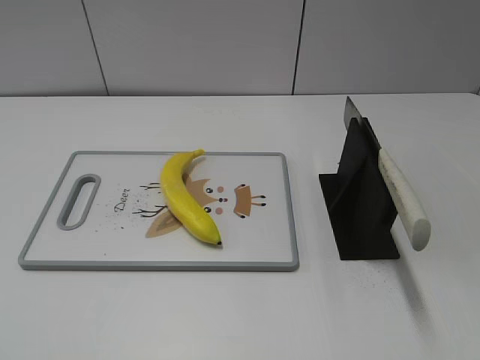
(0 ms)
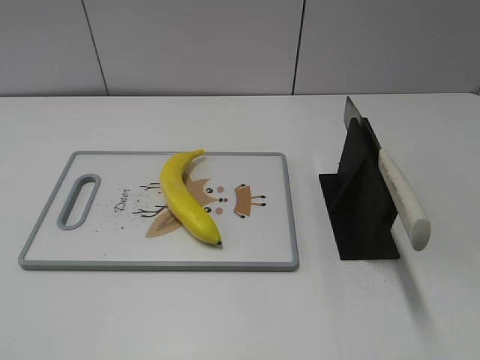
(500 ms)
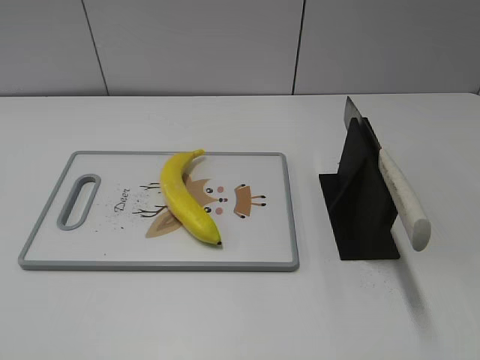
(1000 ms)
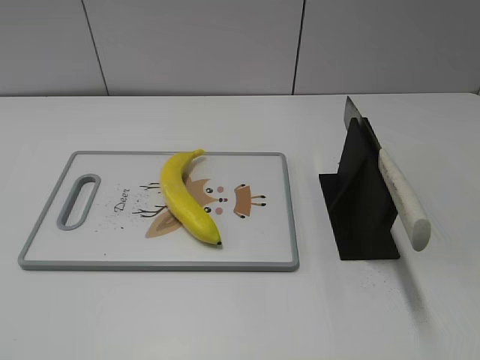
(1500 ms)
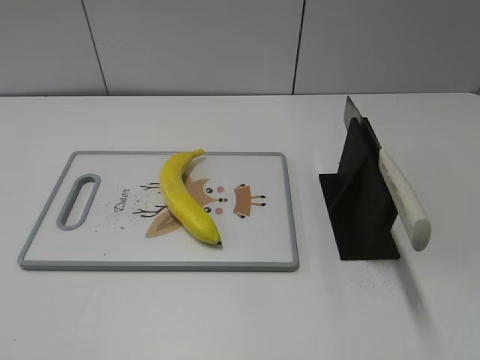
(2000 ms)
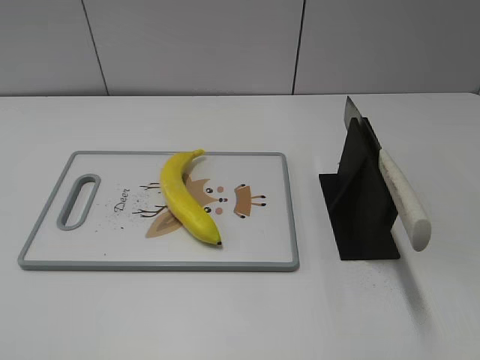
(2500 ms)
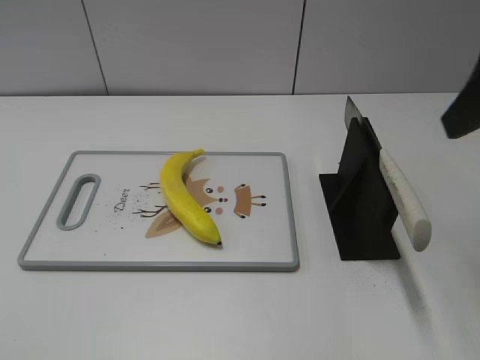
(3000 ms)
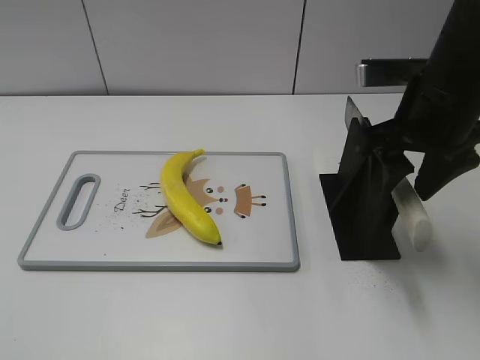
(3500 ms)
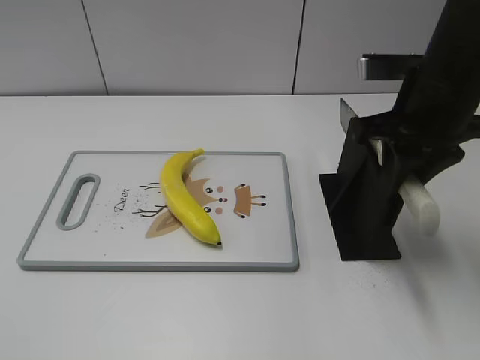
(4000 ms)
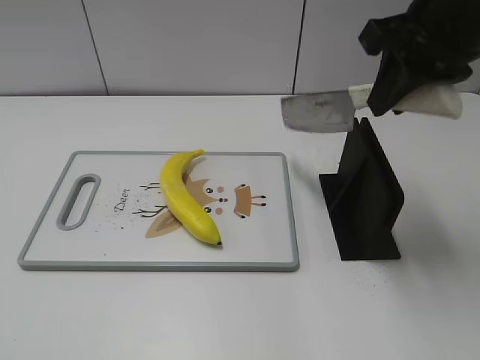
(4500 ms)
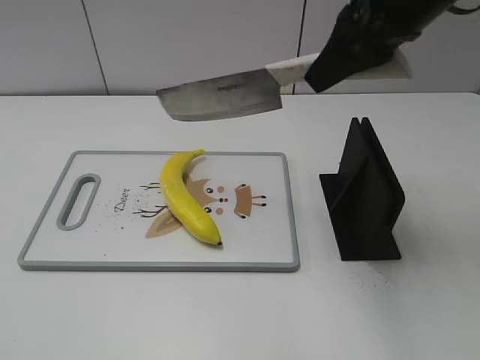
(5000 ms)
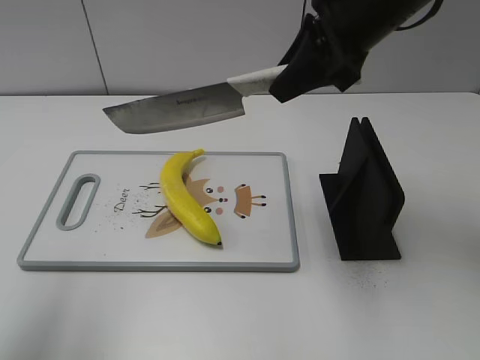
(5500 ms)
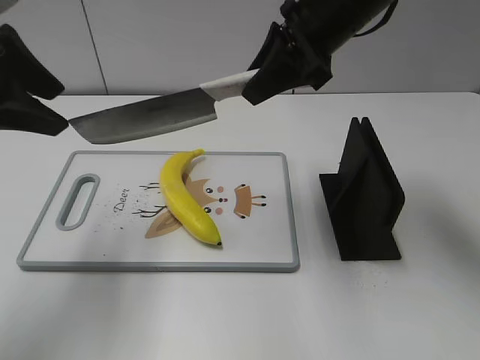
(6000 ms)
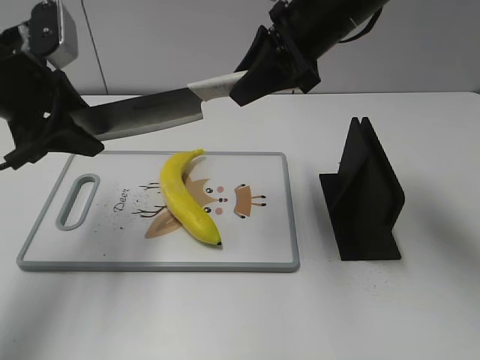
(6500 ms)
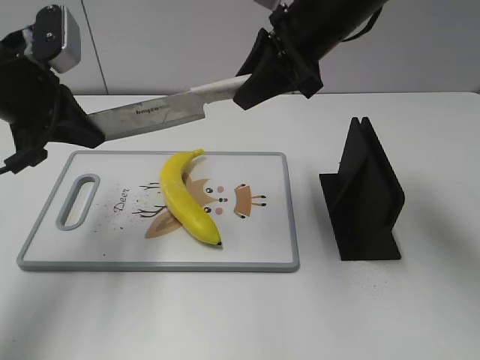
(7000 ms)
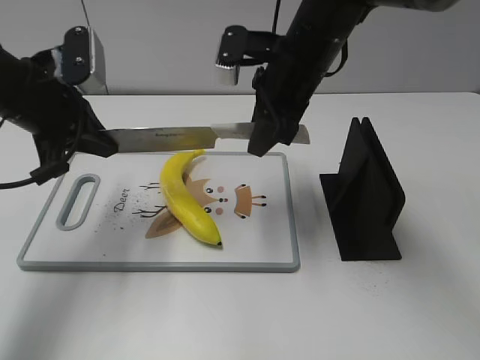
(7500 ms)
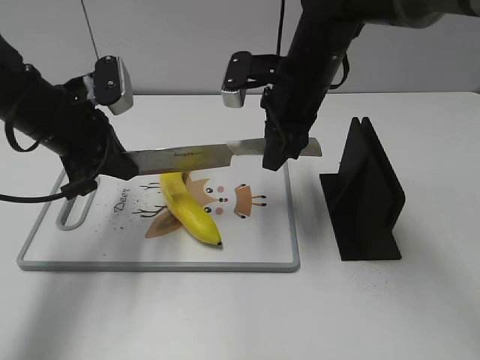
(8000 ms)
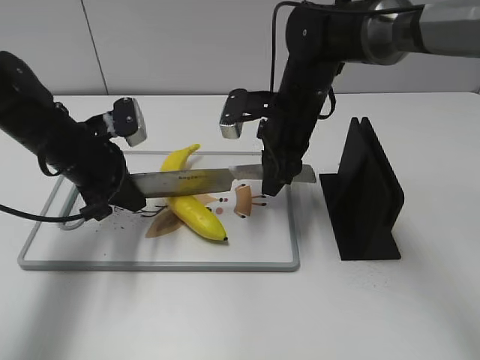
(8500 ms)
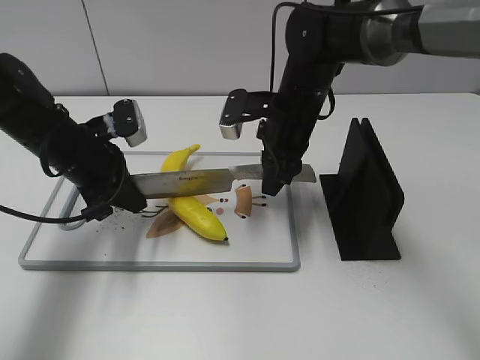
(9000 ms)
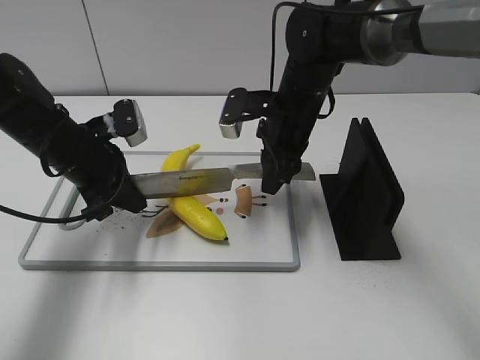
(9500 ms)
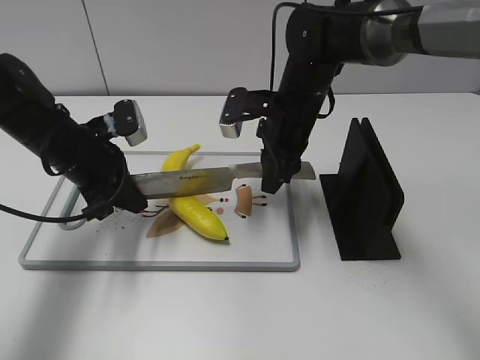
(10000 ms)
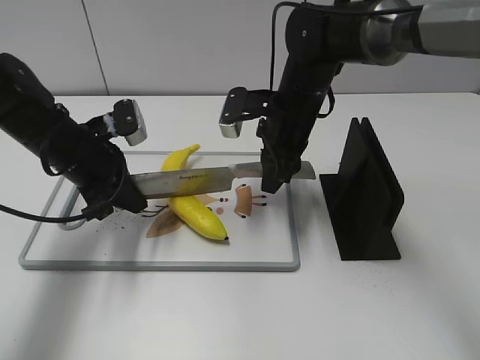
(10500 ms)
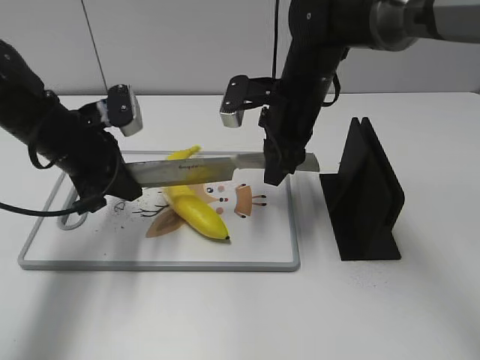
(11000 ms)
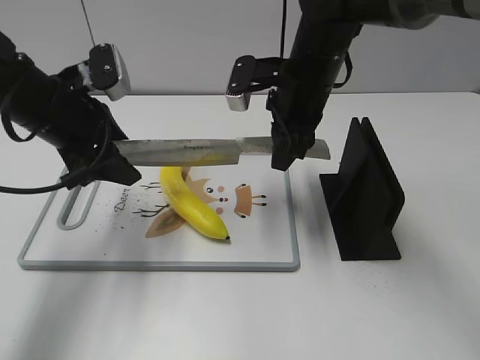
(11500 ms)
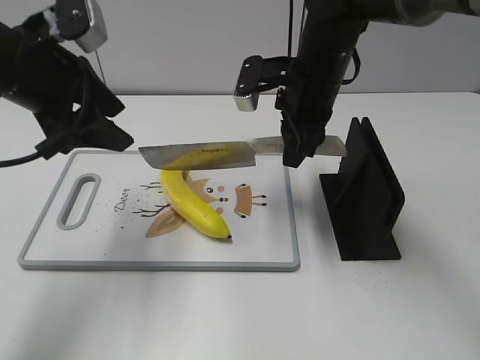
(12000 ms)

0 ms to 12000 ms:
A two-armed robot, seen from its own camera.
Task of the whole recording: cut plastic banana.
Step, 0 ms to 4500 ms: Grab the knife handle with your right hand.
Step, 5000 ms to 8000 ms: Lift the knife with your right hand.
Step, 8500 ms to 10500 ms: Cut the banana with your right hand.
2000 ms to 4000 ms: The right gripper moves forward, about 30 cm, and closes its fingers.
4000 ms to 6000 ms: The left gripper travels forward by about 30 cm. Meanwhile the right gripper is displaced to the left and forward by some 10 cm.
6000 ms to 8000 ms: The right gripper moves downward, roughly 10 cm. The left gripper travels downward and forward by roughly 15 cm, and closes up.
8000 ms to 10000 ms: The grippers both shift downward by some 5 cm.
10000 ms to 12000 ms: The right gripper shifts some 5 cm upward. Meanwhile the left gripper shifts some 15 cm upward, and opens up.

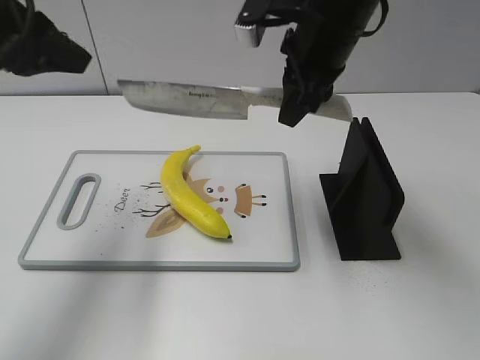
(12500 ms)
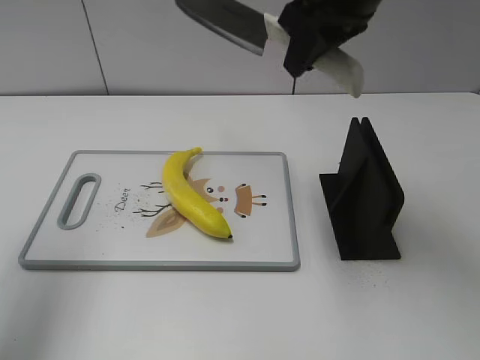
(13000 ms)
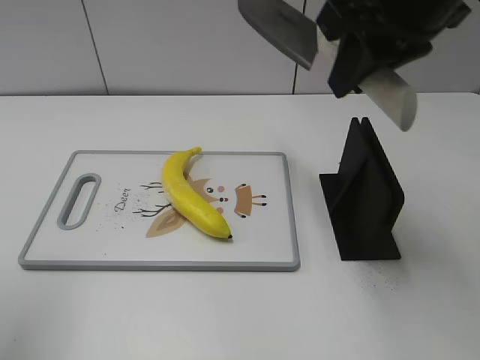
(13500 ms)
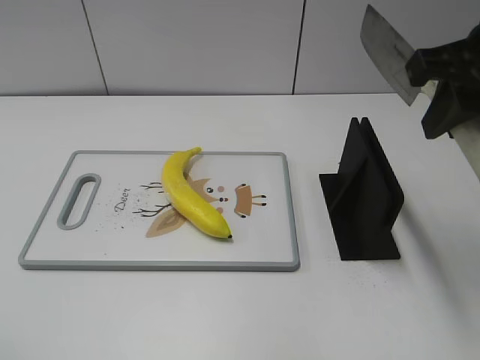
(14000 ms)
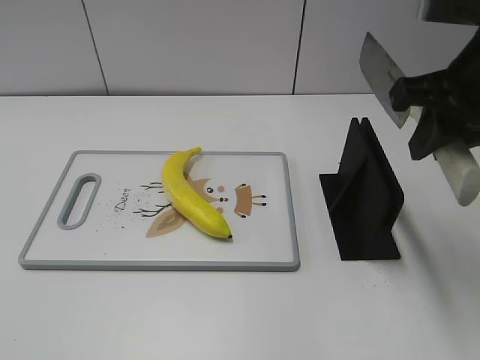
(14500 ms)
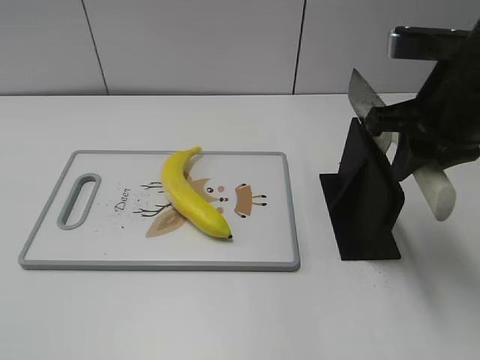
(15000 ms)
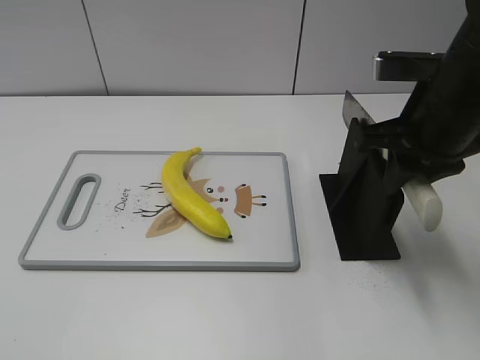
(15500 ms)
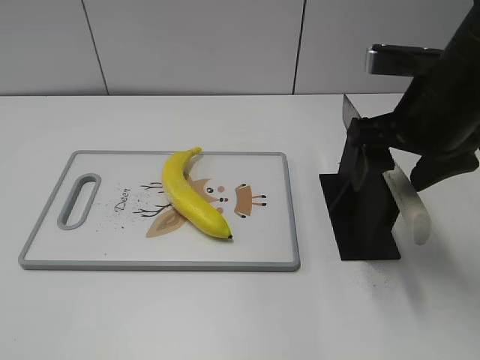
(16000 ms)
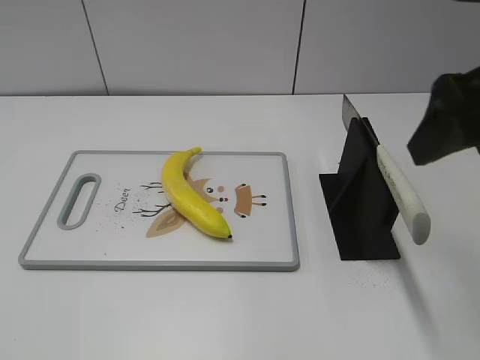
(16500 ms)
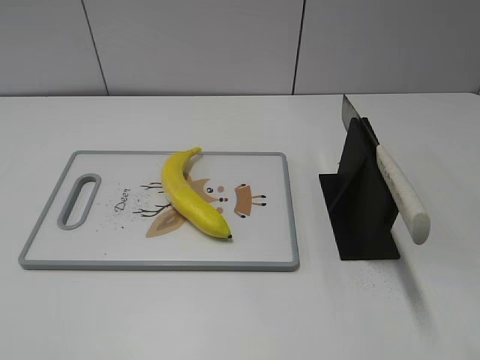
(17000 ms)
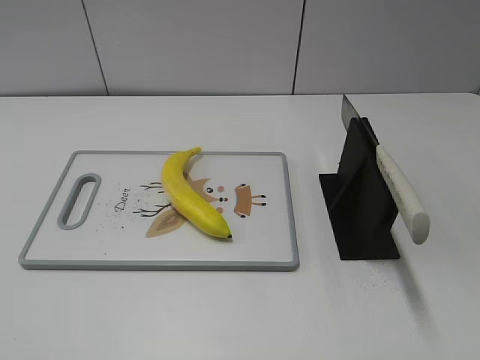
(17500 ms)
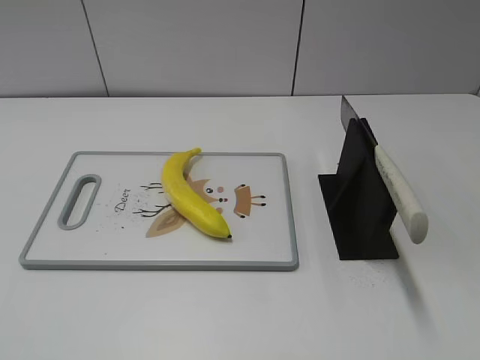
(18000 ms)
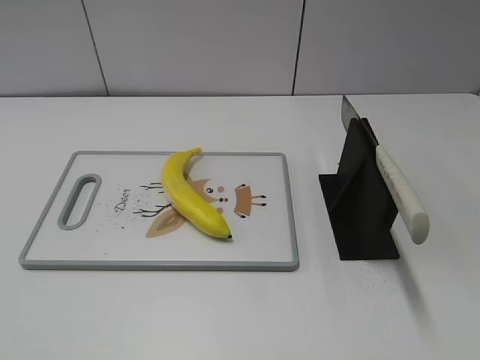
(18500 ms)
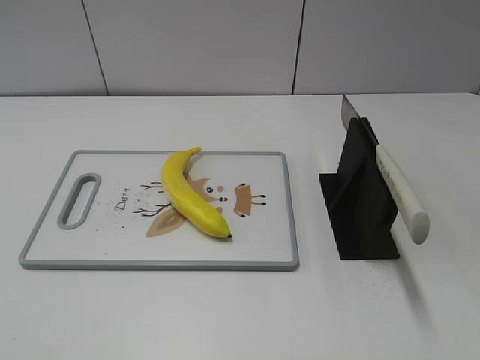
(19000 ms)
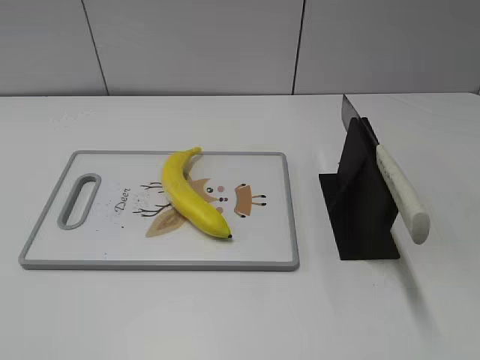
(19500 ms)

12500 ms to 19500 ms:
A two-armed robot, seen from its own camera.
Task of the whole recording: cut plastic banana.
Step, 12500 ms to 14500 ms: Lift the knife with your right hand.
Step, 15000 ms to 19500 ms: Place the knife on the storage rack with your right hand.
12500 ms to 14500 ms: The left gripper is displaced backward by roughly 30 cm, while the right gripper shifts roughly 15 cm backward and to the right.
14500 ms to 16000 ms: The right gripper goes some 5 cm downward, and opens.
16000 ms to 17500 ms: The right gripper moves backward and to the right, about 25 cm.

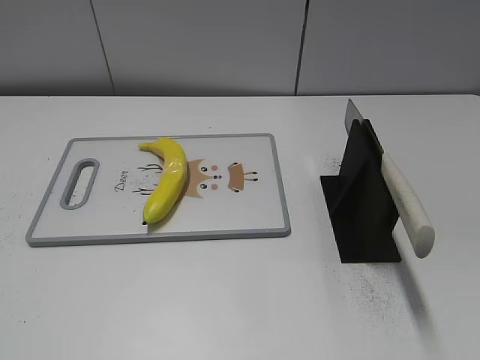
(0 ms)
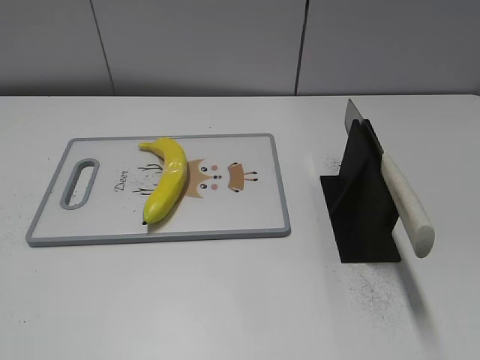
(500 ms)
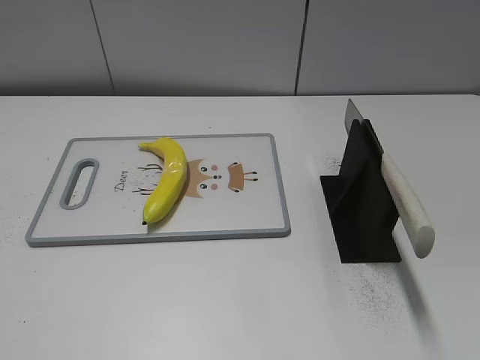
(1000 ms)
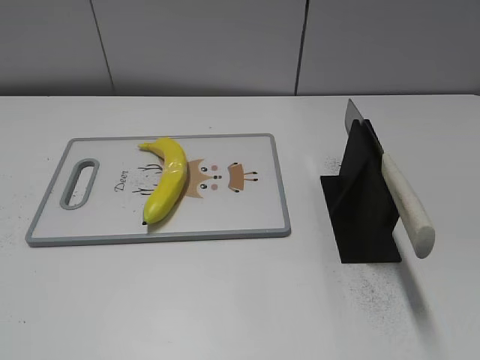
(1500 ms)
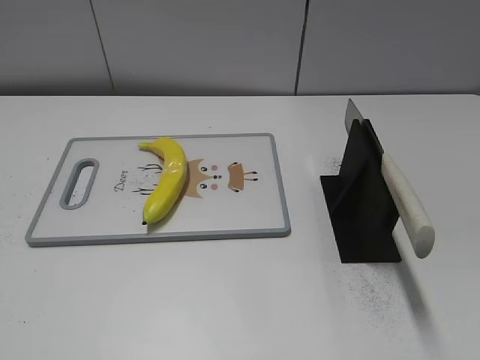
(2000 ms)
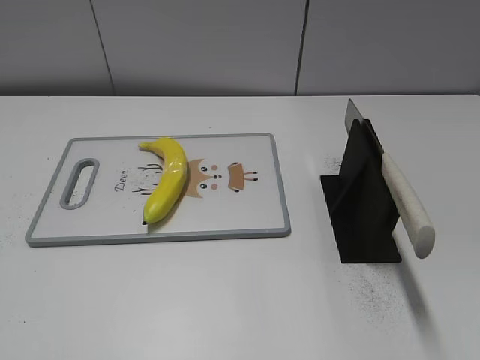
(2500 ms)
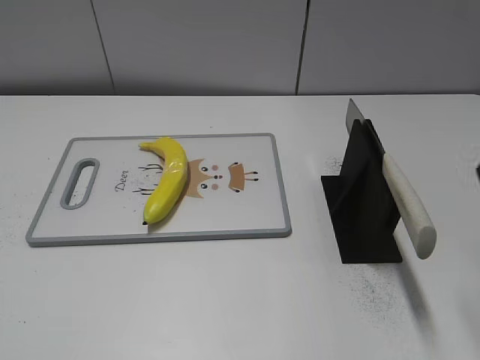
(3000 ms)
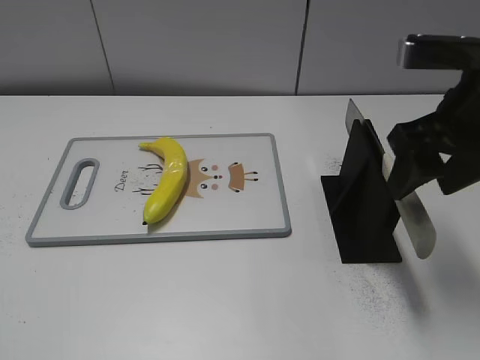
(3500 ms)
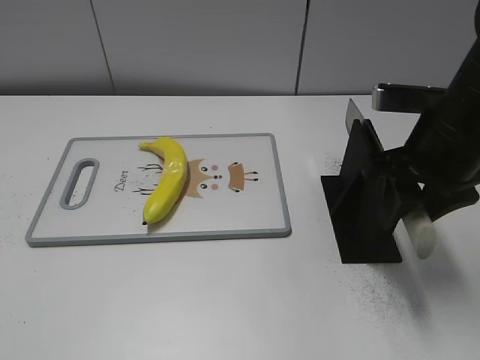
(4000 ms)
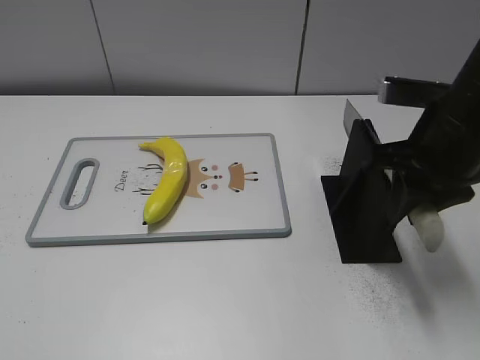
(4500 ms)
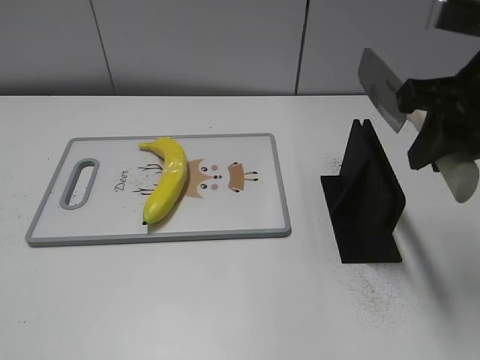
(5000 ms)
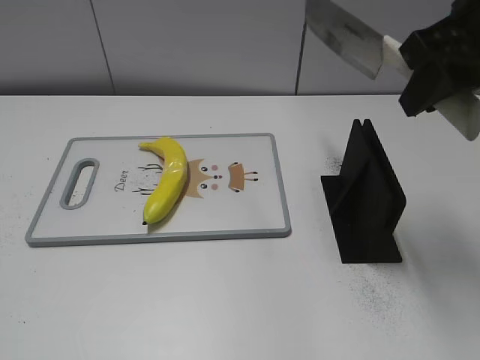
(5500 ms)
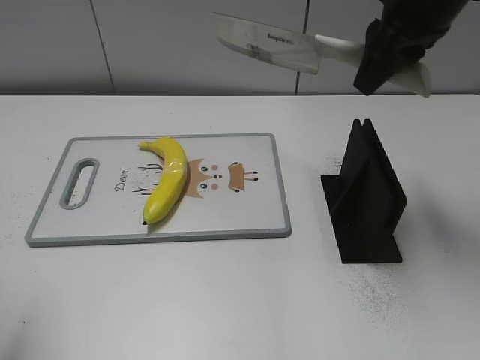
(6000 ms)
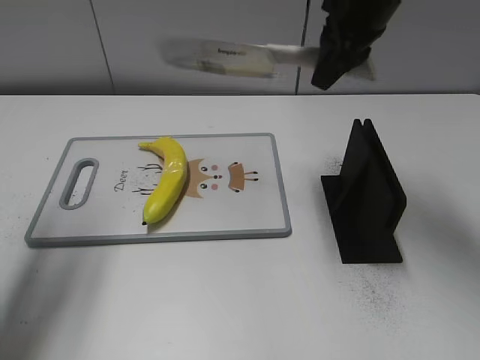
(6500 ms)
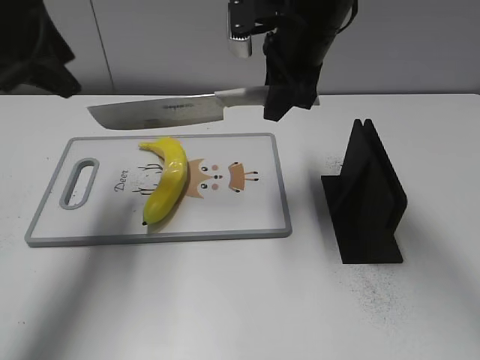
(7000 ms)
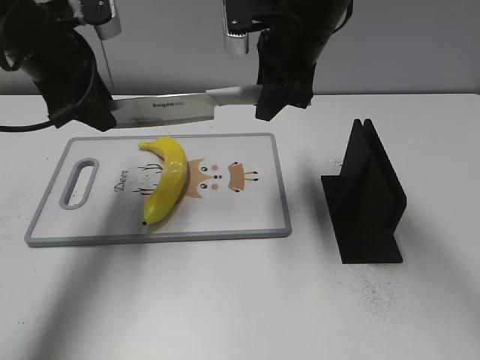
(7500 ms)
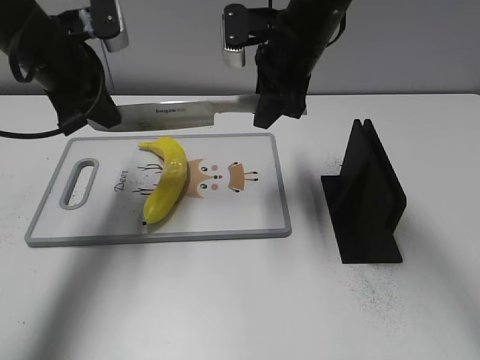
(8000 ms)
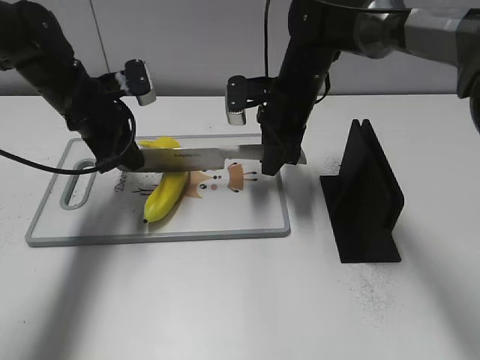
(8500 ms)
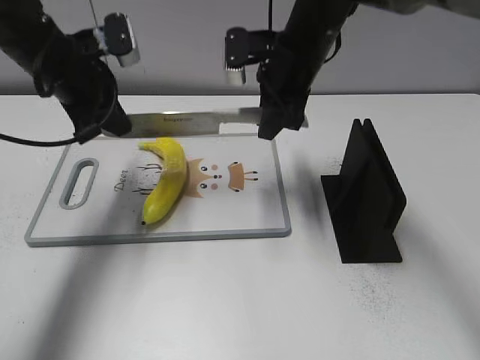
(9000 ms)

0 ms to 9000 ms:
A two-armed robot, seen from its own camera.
Task of the whole recording: cut plastic banana.
Step, 0 ms to 5000 ms: Grab the knife handle with your right hand.
2000 ms to 4500 ms: The right gripper travels forward and to the left by about 25 cm, and closes.
4500 ms to 7000 ms: The right gripper goes about 20 cm forward and to the left; the left gripper shifts some 35 cm forward.
7000 ms to 9000 ms: The right gripper travels downward by about 5 cm. Meanwhile the left gripper travels downward and forward by about 10 cm, and closes its fingers.
